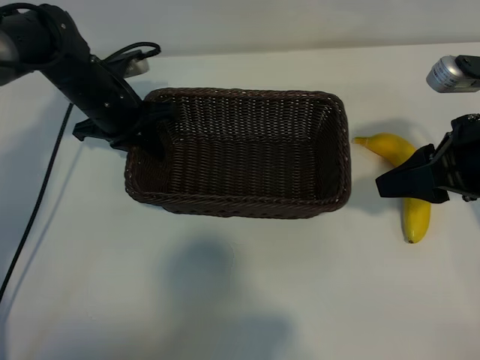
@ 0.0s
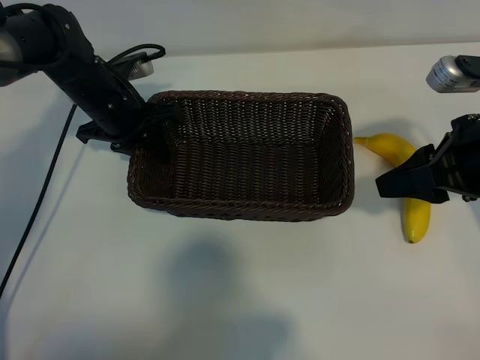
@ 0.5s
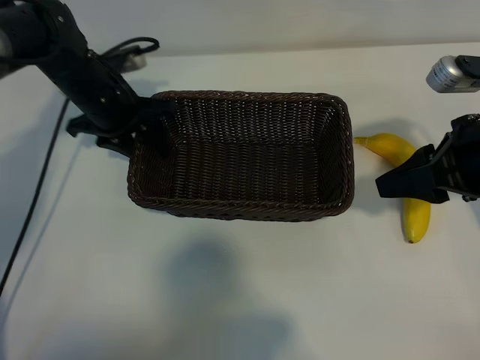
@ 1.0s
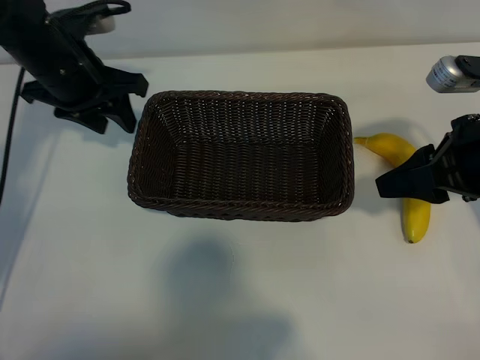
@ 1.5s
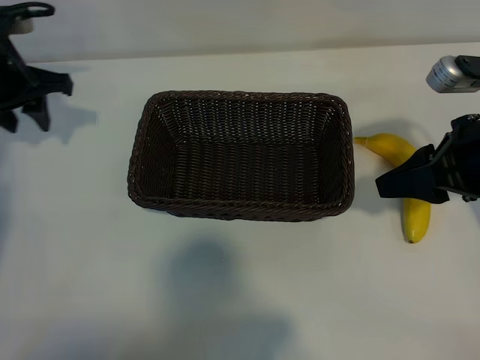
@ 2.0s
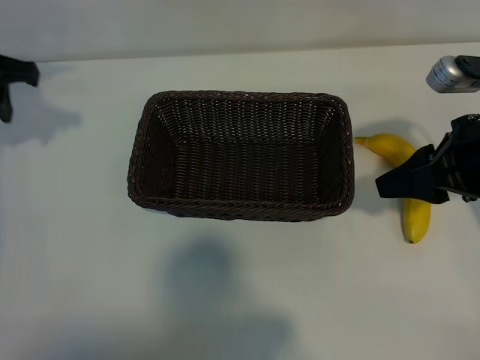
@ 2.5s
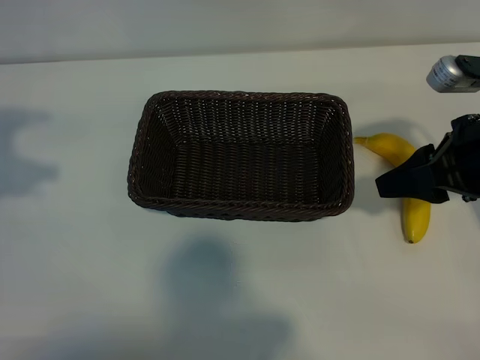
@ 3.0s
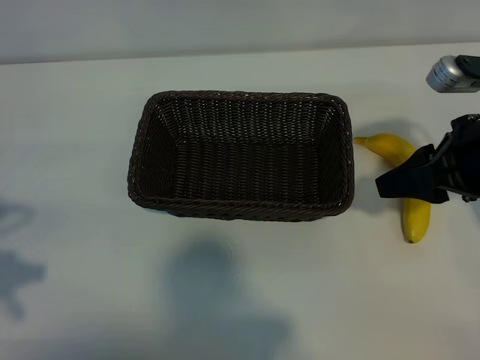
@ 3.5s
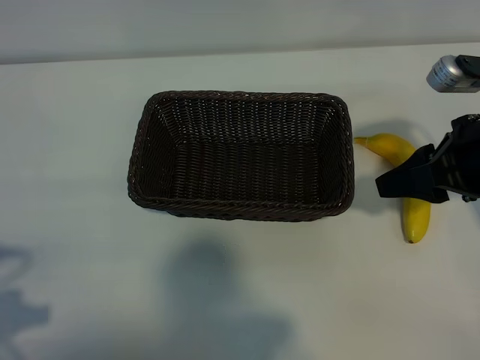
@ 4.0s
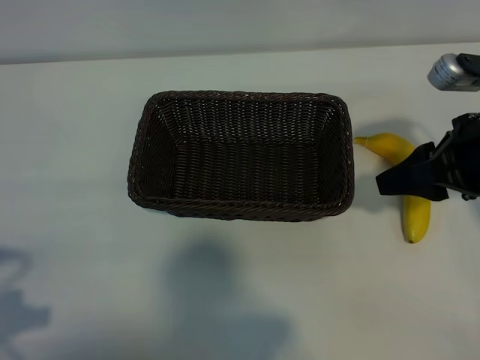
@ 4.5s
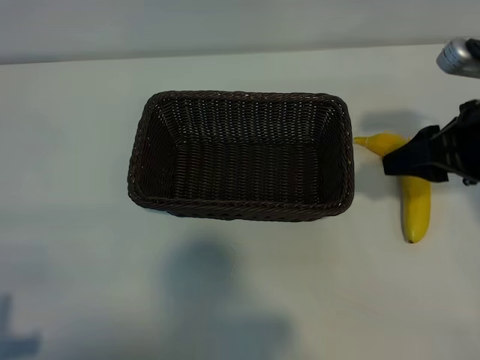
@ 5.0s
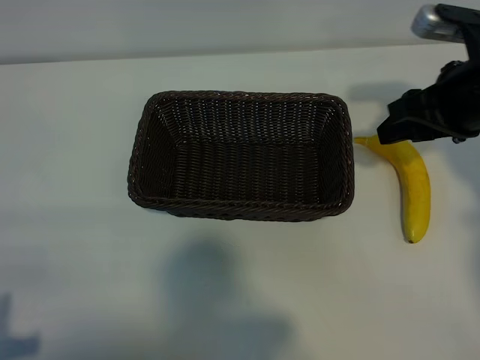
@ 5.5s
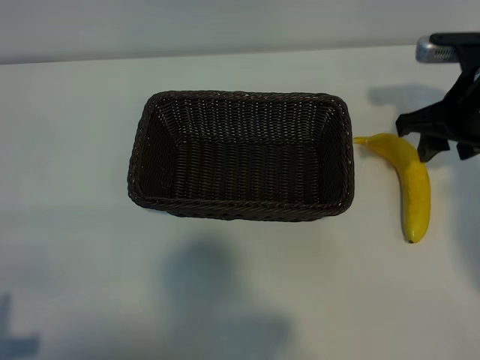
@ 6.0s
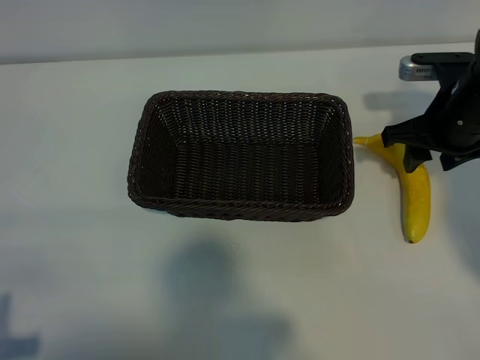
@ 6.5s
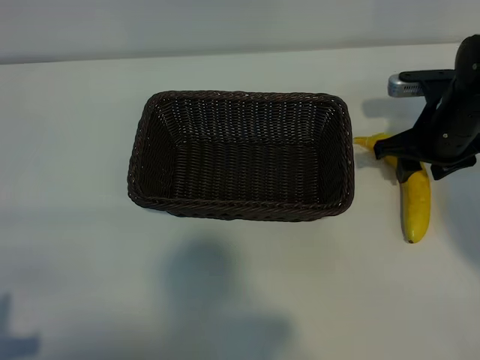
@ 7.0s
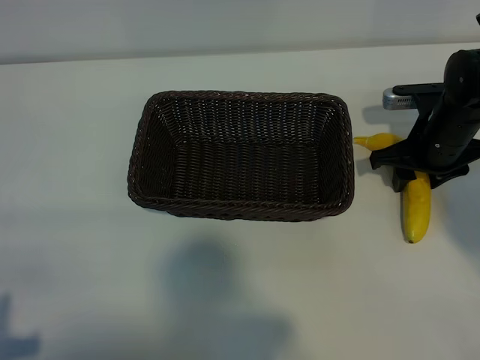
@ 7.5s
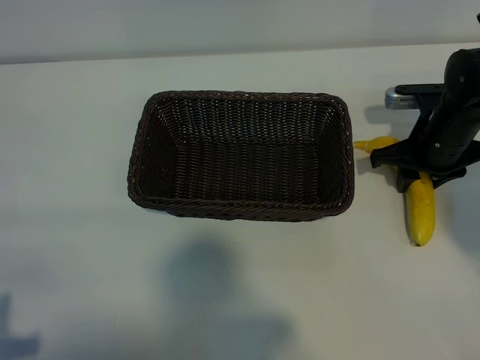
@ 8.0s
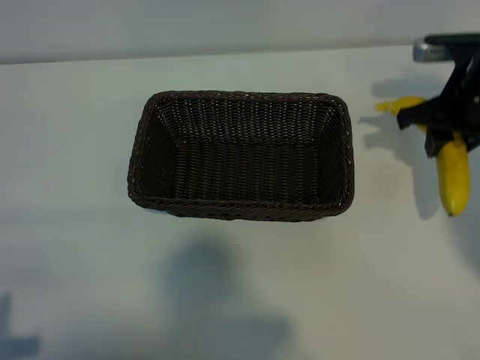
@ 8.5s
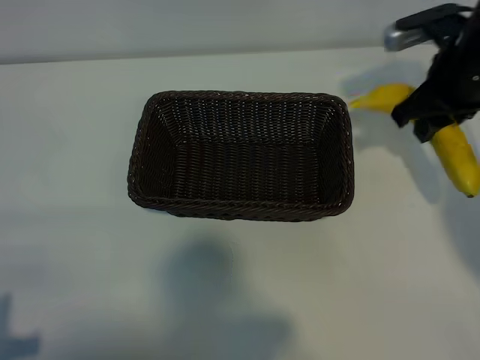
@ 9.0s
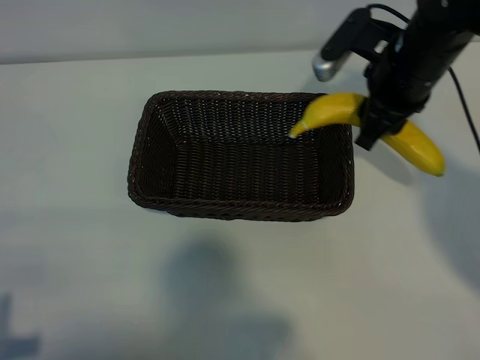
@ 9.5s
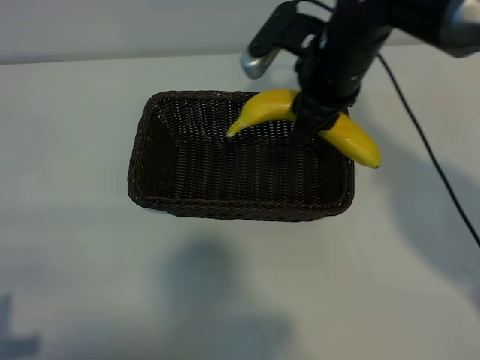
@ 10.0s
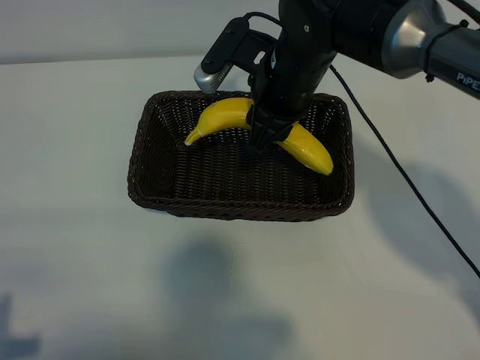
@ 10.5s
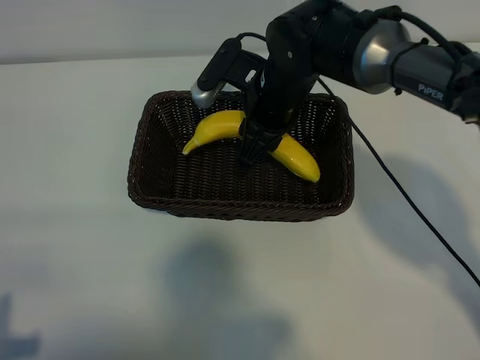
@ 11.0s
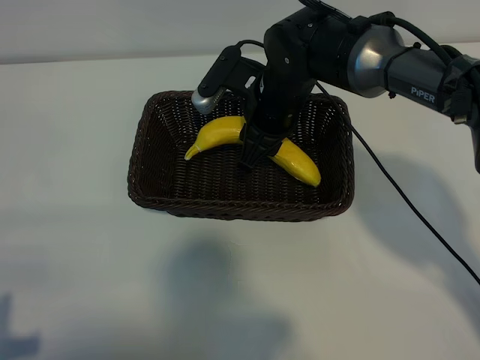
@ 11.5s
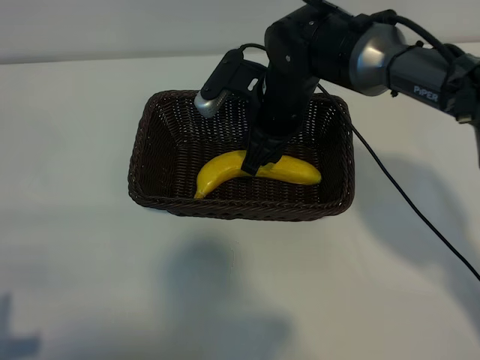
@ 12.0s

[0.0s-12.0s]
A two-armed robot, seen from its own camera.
Task of the whole recording: pick up the banana and put it into the basket.
Step, 1.5s to 7.5s: Grasp the banana with right gripper.
